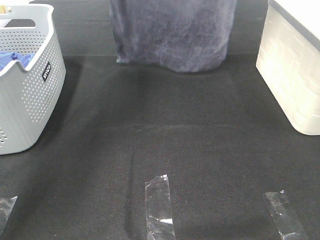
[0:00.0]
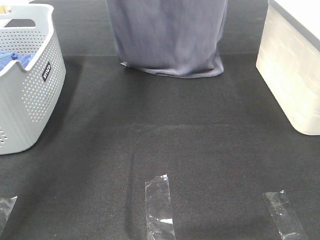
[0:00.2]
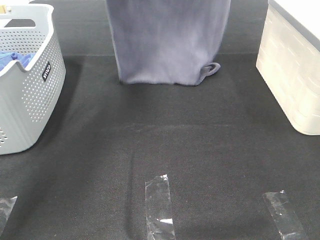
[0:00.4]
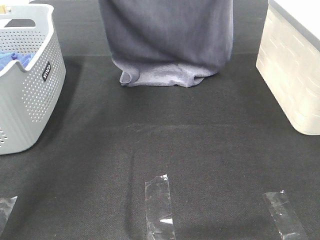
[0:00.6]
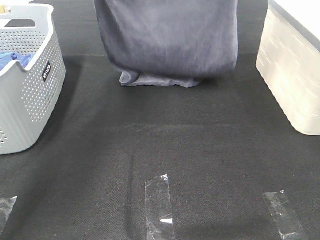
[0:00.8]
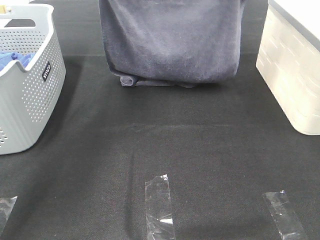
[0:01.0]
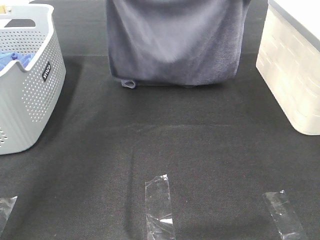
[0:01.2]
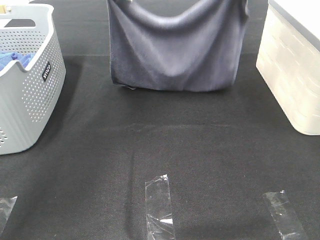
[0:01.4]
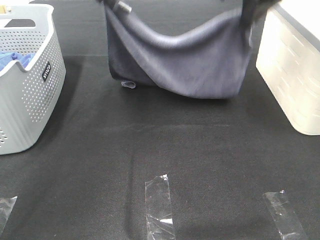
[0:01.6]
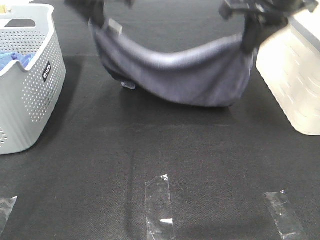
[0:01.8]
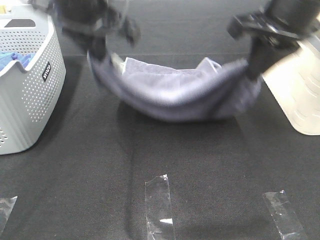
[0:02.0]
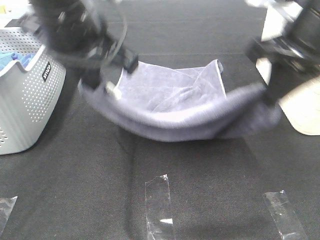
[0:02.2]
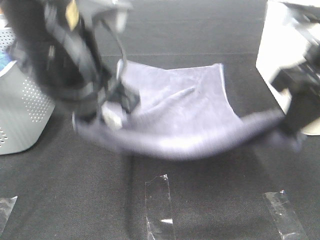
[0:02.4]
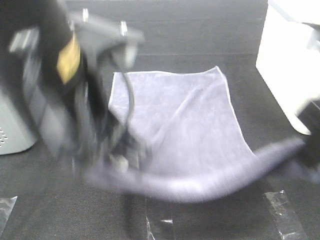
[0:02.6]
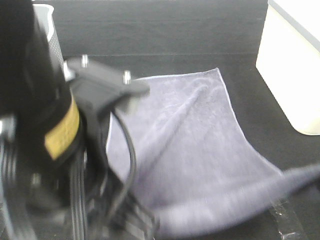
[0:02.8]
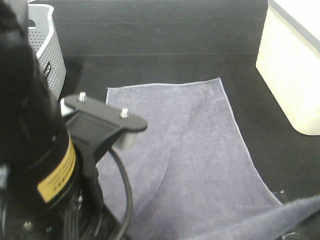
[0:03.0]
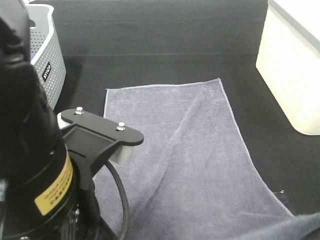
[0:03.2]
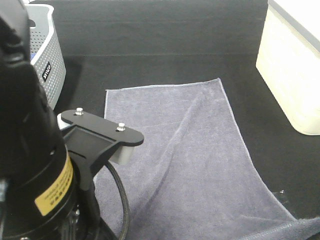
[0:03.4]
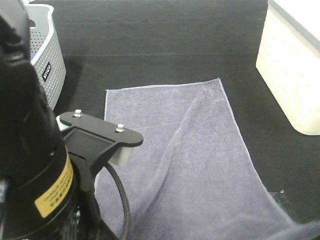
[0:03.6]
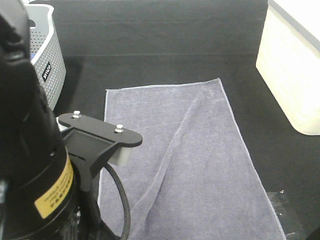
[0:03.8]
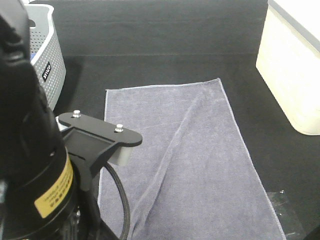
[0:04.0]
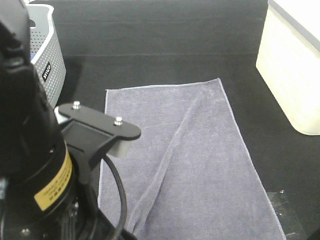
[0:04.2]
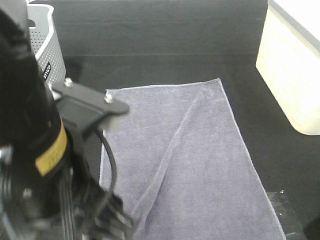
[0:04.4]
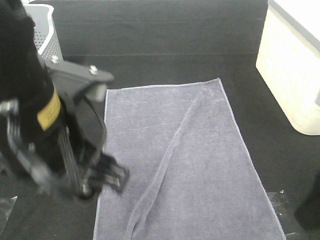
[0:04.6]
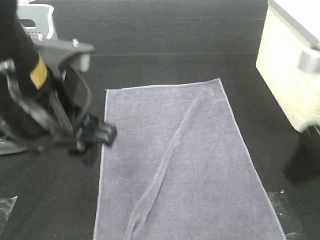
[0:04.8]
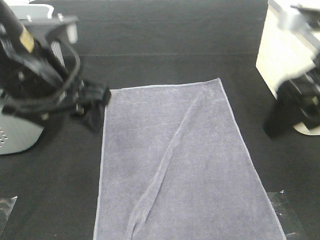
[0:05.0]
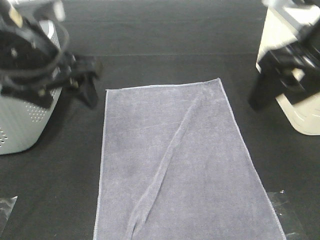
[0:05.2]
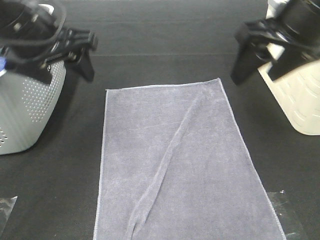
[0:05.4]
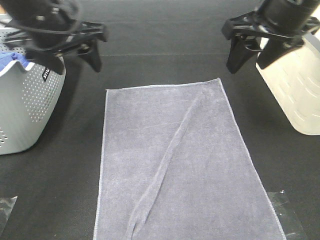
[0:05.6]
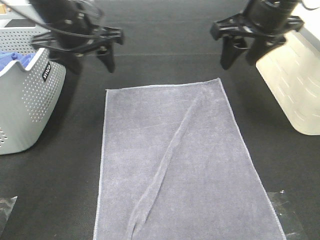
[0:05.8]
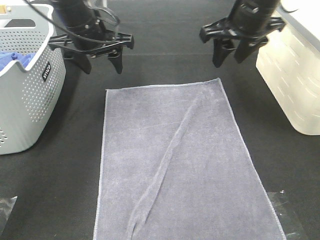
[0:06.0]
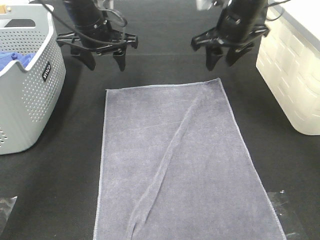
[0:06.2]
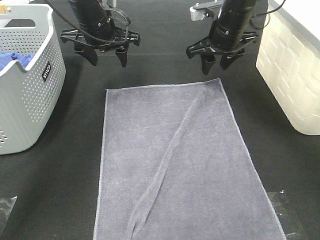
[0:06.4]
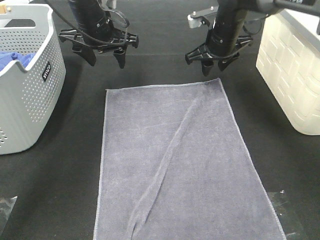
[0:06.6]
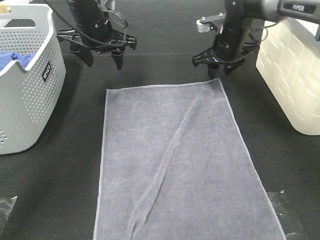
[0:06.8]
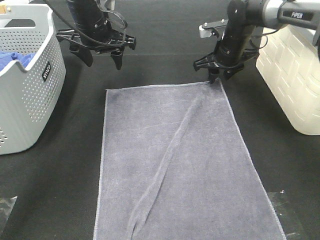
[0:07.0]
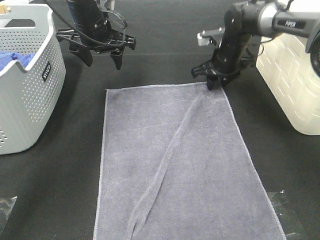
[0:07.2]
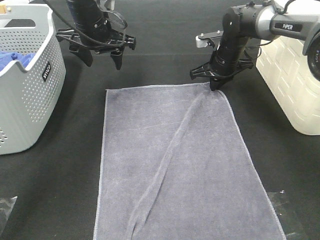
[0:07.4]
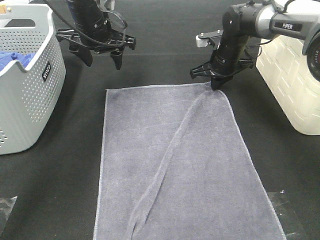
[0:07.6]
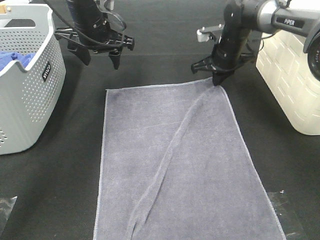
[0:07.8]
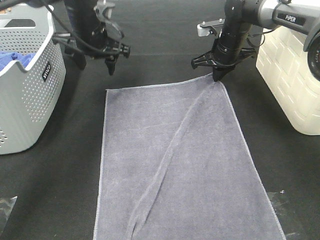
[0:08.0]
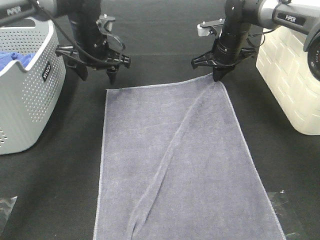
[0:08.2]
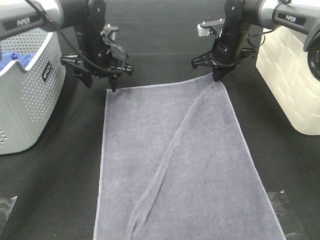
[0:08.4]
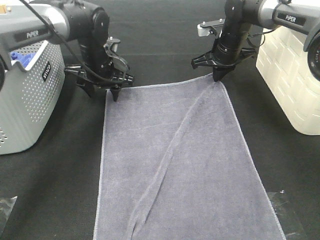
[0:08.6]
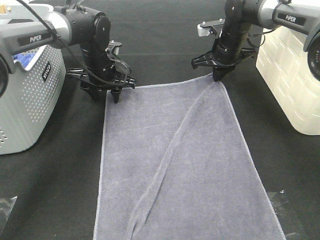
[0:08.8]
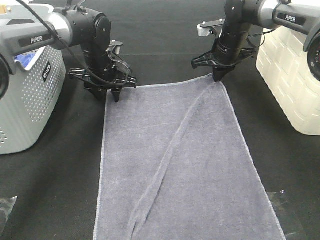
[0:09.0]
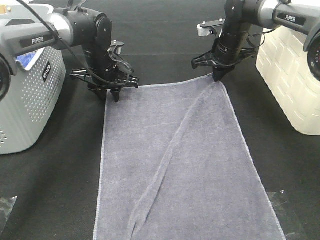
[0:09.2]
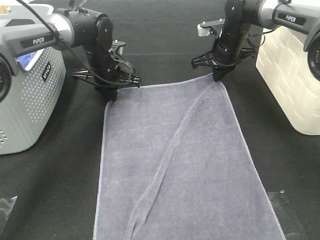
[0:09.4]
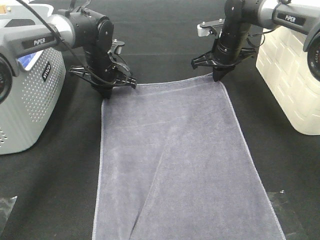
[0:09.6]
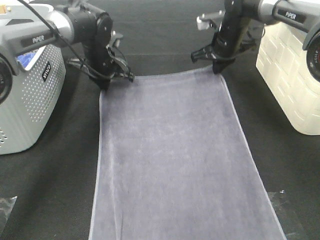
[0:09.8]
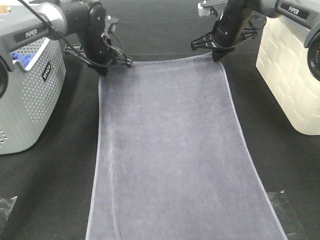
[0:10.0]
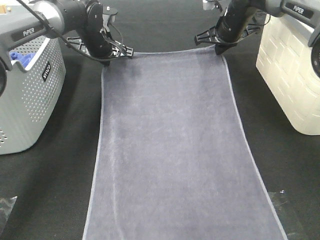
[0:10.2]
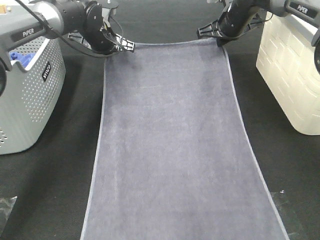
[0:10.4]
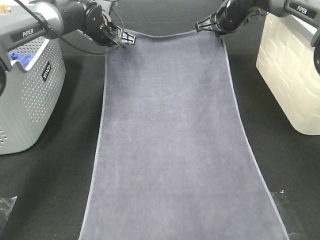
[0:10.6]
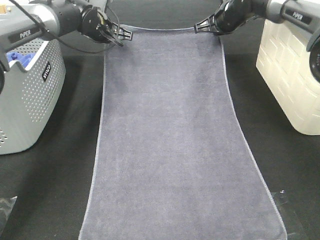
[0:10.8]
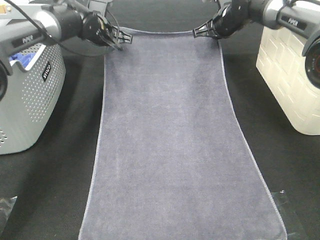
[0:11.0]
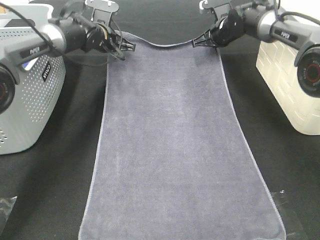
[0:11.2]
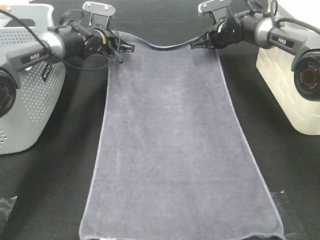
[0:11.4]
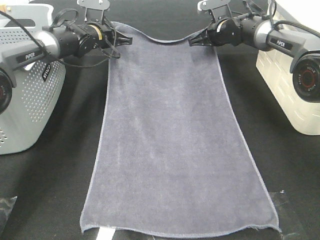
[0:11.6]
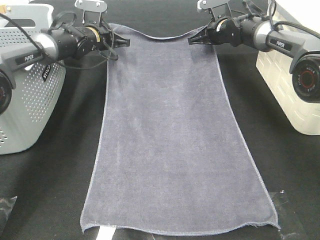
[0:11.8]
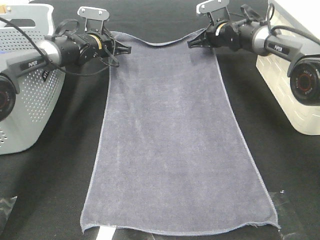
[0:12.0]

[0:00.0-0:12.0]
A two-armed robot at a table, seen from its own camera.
Task of the whole recording: Remove the towel and place it.
Step, 0.0 to 6.0 s: Left hand:adjust the gray towel.
Step, 0.0 to 6.0 s: Right hand:adjust the gray towel.
0.0 to 1.6 s: The left gripper travels downward and backward by approximately 15 cm. The right gripper goes roughly 20 cm downward.
1.6 to 3.0 s: Both grippers move backward, about 30 cm.
3.0 to 4.4 s: The right gripper opens. Meanwhile the left gripper opens its fingers.
4.4 to 6.0 s: The grippers both shift forward by some 30 cm. The right gripper closes up.
6.0 to 7.6 s: The right gripper shifts some 15 cm downward and forward, and closes its fingers.
7.6 to 9.0 s: The left gripper goes about 10 cm downward.
9.0 to 10.4 s: The right gripper changes place by roughly 5 cm, while the left gripper goes approximately 5 cm forward and upward, and closes.
10.4 to 12.0 s: The grippers both shift downward by about 5 cm.

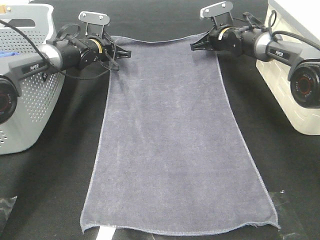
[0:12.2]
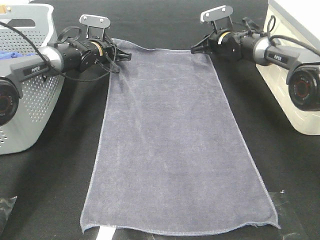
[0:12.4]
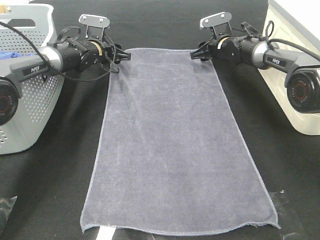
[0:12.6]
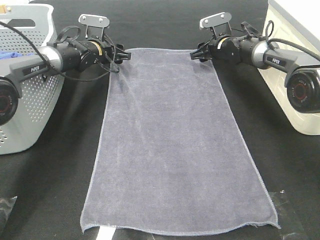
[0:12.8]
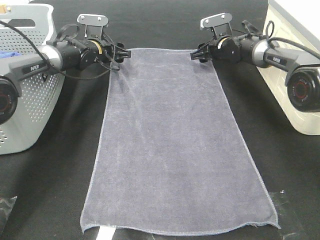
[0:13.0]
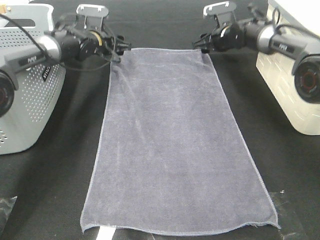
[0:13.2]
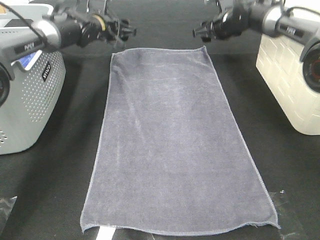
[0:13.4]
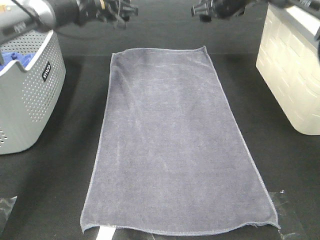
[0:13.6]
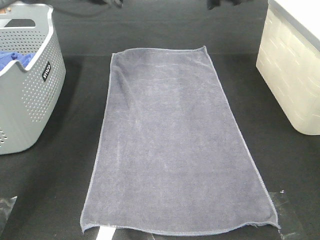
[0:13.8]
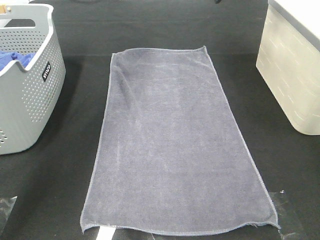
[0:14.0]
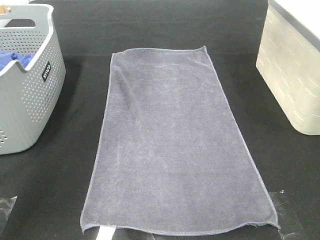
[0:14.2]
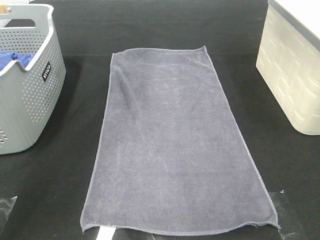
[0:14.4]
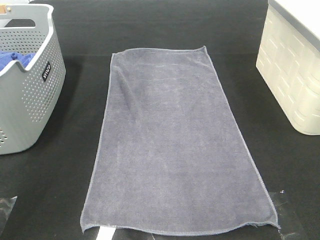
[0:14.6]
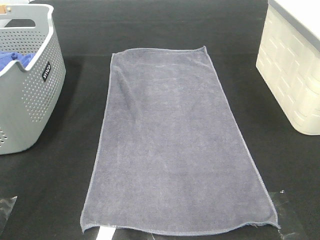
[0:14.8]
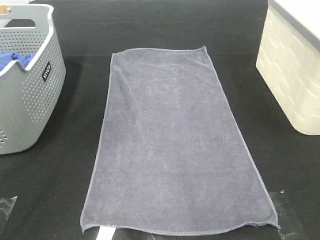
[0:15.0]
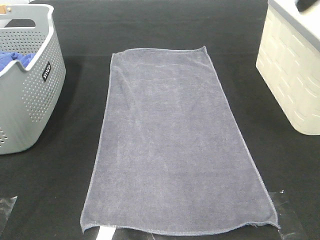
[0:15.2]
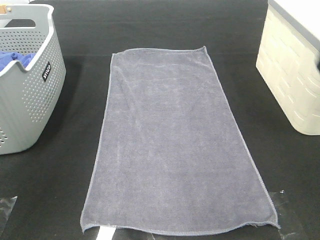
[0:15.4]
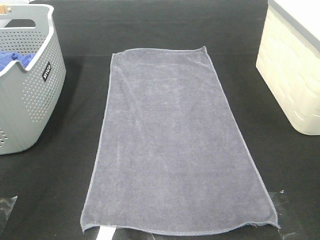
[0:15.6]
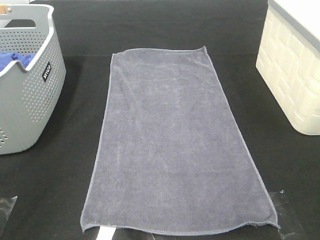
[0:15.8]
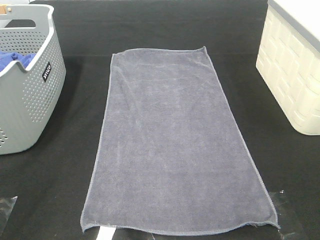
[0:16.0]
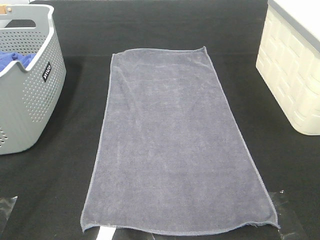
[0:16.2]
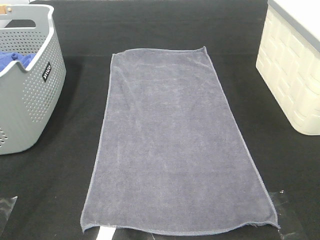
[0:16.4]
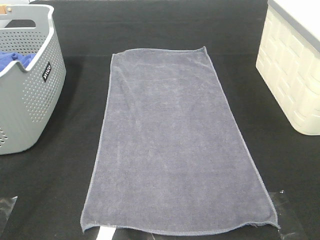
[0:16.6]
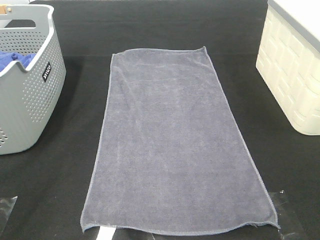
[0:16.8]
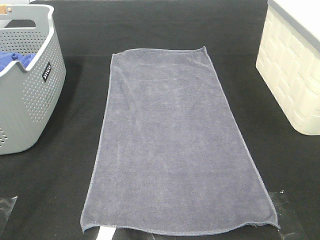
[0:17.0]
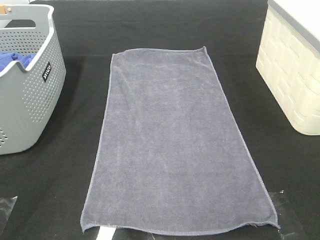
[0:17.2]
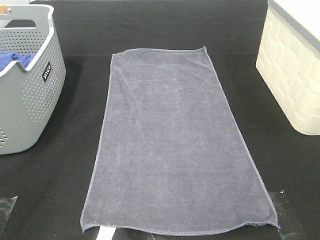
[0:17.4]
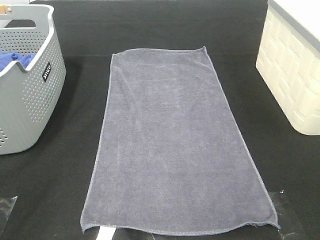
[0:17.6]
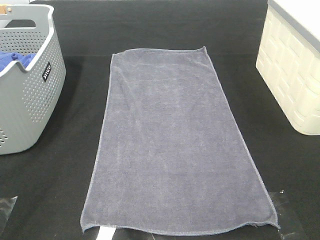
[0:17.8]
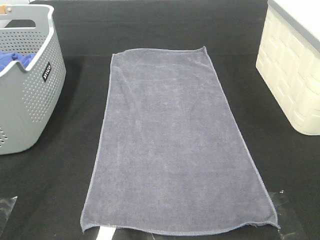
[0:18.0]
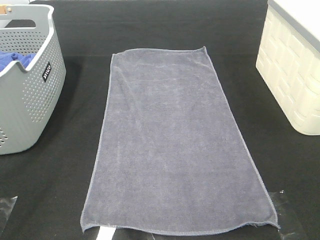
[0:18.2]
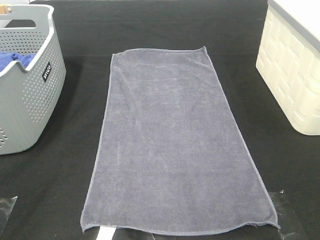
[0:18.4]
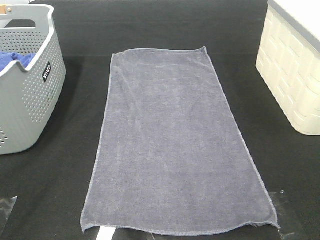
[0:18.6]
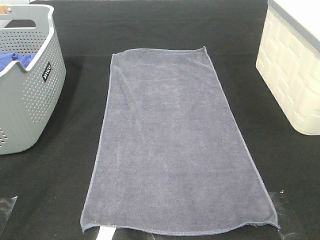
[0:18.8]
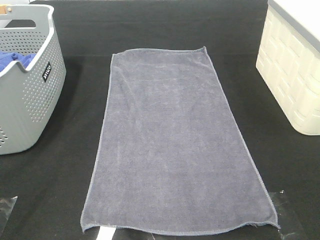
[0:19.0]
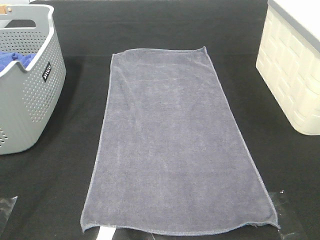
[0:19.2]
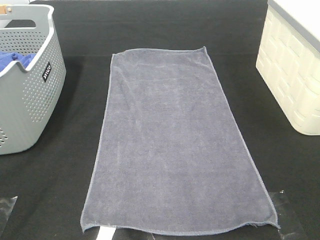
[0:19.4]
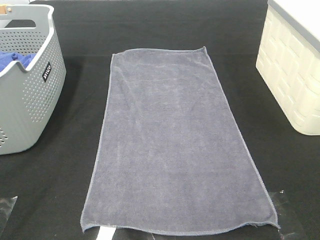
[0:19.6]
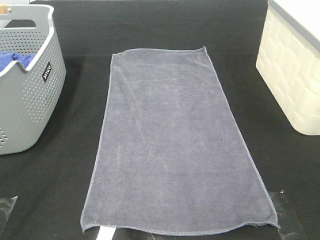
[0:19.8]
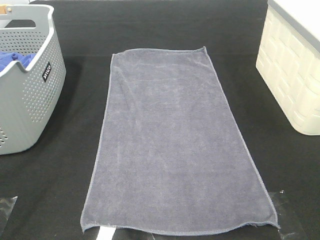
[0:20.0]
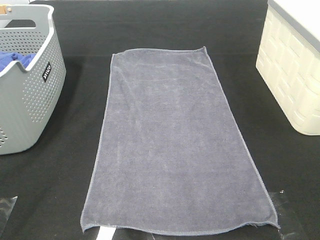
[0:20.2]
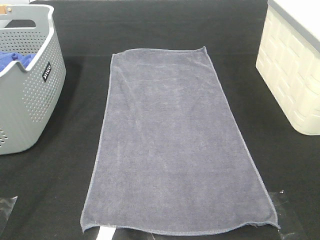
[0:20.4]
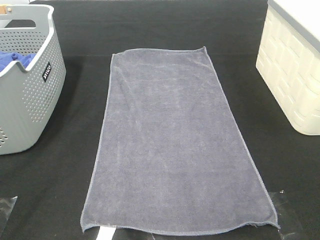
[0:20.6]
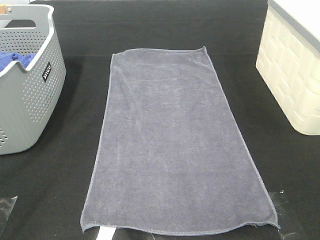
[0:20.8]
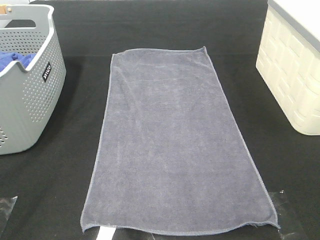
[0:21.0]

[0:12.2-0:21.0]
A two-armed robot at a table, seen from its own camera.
Task of the whole recording: Remove the towel and place it.
12.2 to 13.6 s: Both grippers move upward, approximately 10 cm. The right gripper opens up; the left gripper opens.
13.6 to 15.2 s: The grippers both shift backward and upward by roughly 35 cm.
15.2 to 16.6 s: Both grippers travel together backward and downward, about 30 cm.
19.6 to 21.0 s: Both grippers stay put.

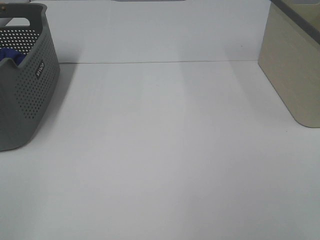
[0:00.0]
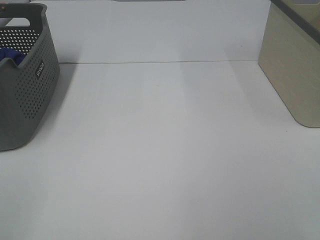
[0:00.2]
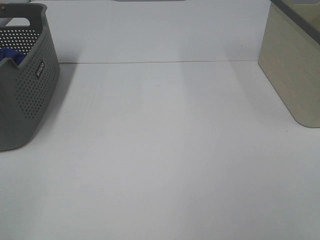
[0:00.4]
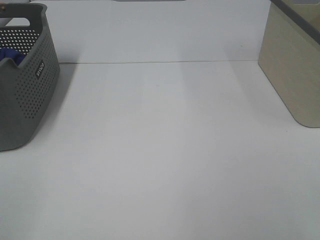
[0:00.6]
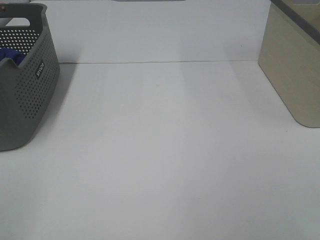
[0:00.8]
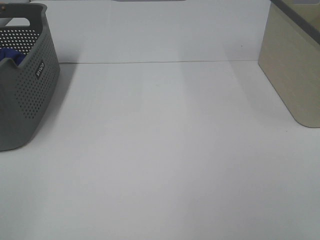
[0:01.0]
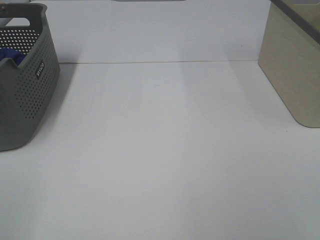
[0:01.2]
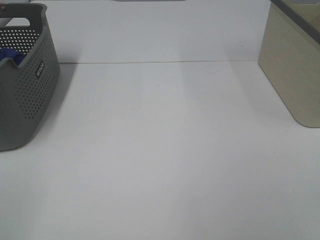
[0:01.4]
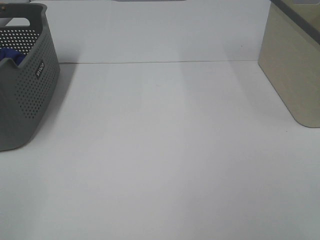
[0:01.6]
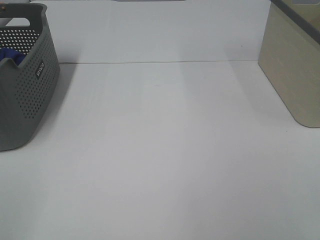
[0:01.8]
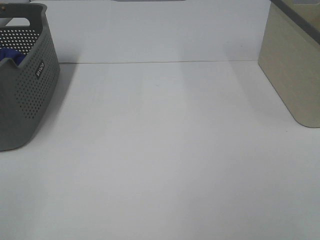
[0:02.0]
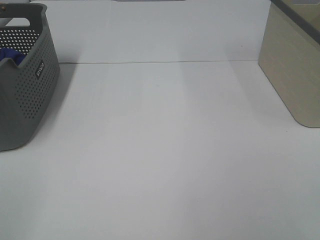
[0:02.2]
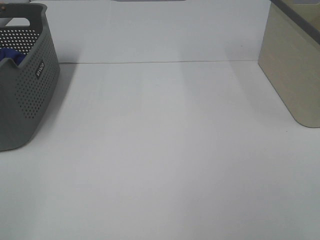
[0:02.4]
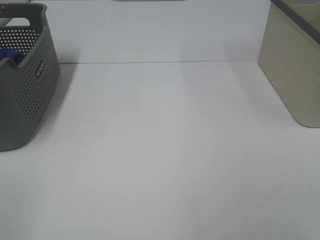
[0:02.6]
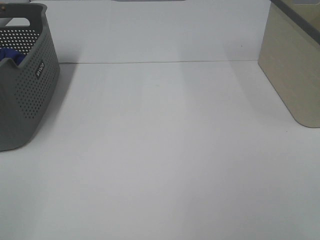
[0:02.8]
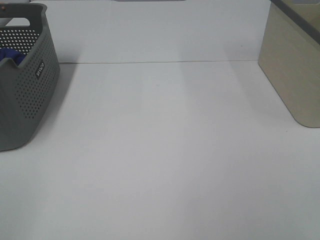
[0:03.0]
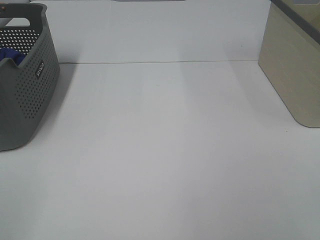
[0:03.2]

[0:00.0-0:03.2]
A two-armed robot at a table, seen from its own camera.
Task of the whole recording: Remove the towel and place it.
0.0 to 3.2 s: The two grippers keep their place.
